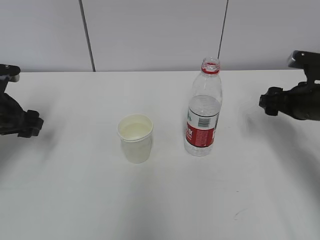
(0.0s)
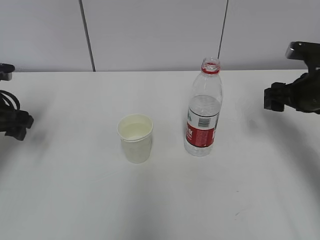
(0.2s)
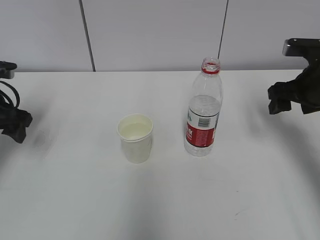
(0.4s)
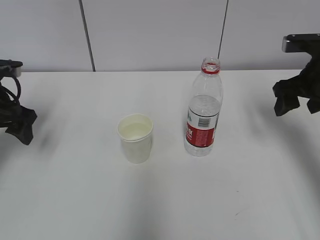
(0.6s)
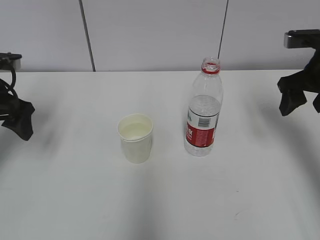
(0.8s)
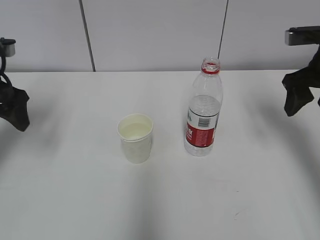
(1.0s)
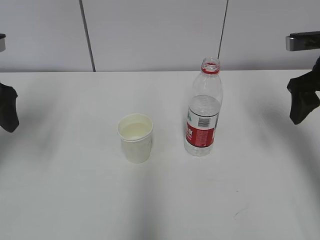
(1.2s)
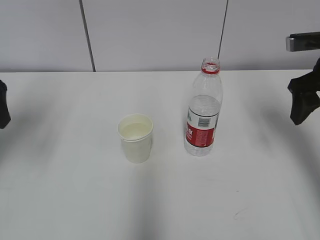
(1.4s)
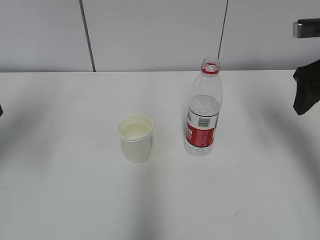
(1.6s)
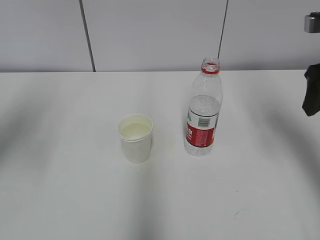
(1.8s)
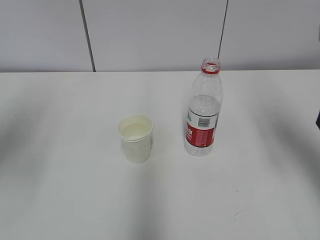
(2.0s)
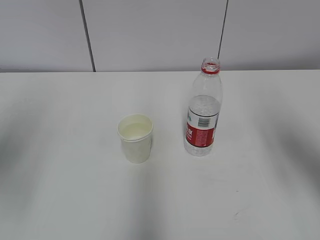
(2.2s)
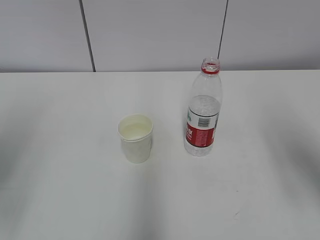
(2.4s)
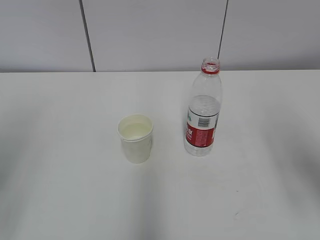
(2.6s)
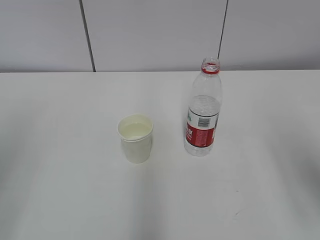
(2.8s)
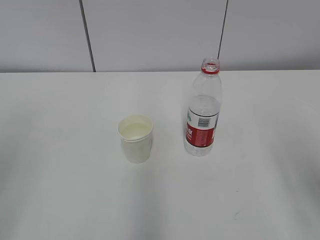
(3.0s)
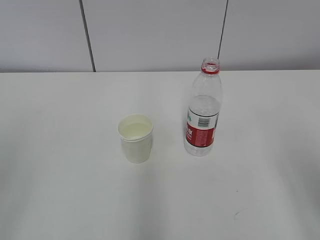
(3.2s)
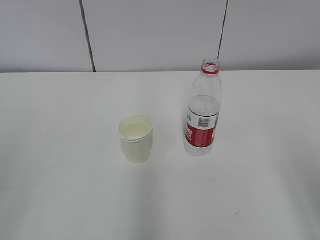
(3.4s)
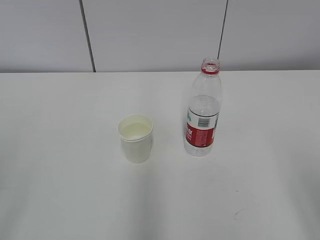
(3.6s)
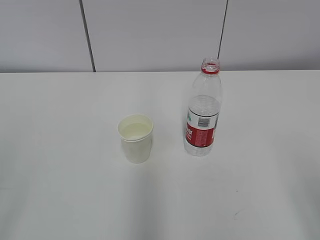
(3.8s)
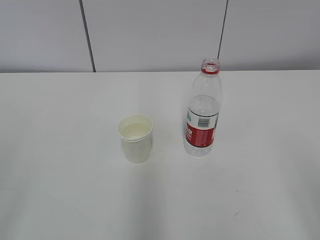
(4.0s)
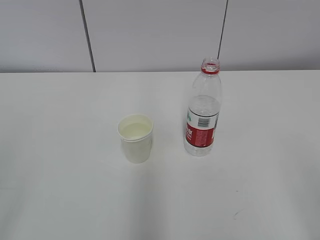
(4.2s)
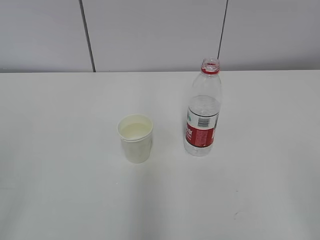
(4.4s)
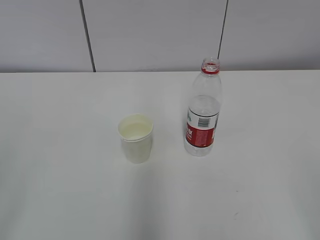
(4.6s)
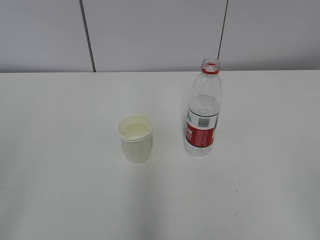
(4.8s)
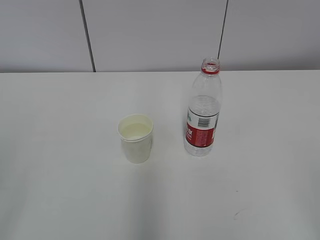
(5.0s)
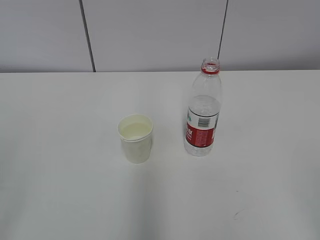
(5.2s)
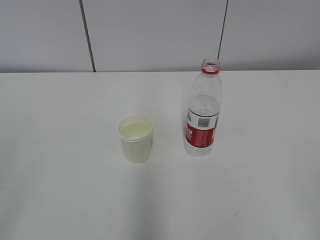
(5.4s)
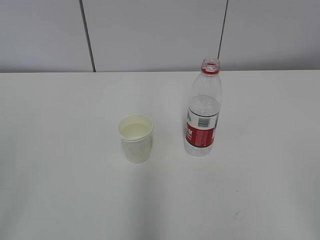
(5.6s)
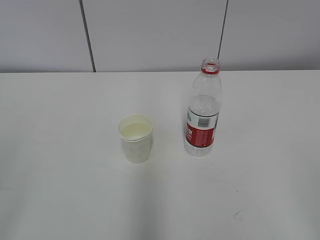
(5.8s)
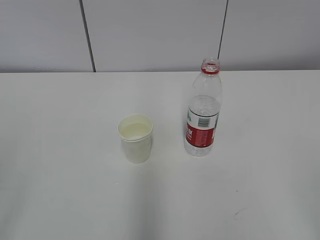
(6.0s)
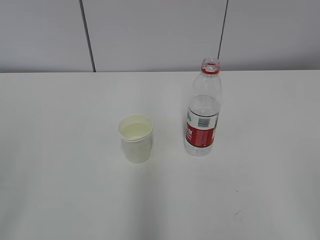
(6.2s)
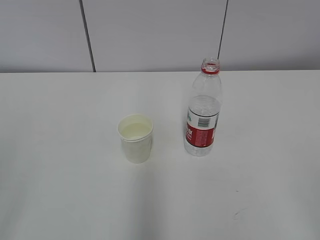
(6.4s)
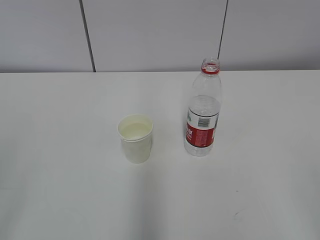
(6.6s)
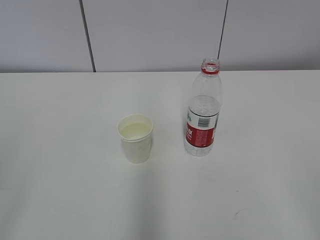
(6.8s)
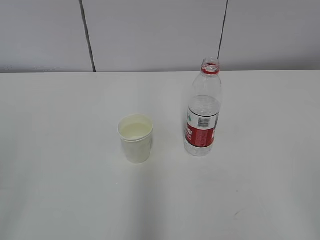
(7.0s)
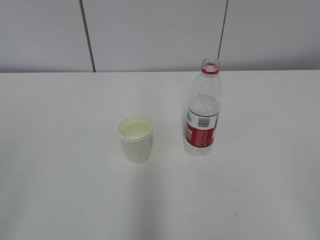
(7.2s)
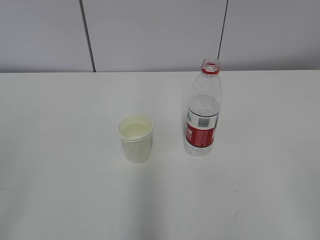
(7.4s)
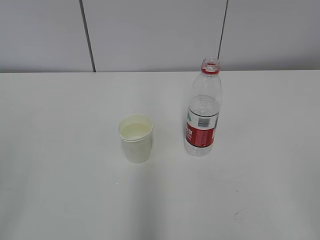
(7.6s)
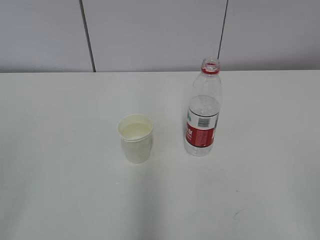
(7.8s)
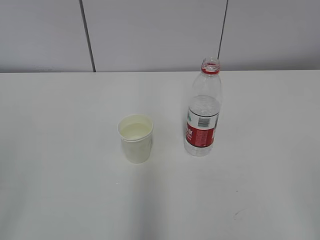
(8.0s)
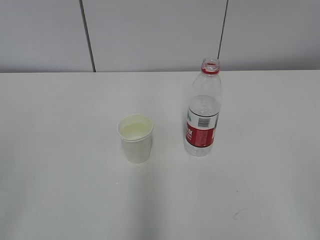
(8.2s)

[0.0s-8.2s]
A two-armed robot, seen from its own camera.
0.0s to 1.6s: The left gripper goes roughly 15 cm upward and backward; the right gripper travels upward by about 10 cm.
1.6s to 3.2s: Both grippers move backward, approximately 20 cm.
5.0s to 8.2s: The two grippers keep their place.

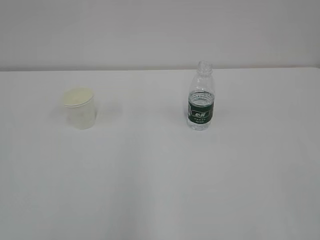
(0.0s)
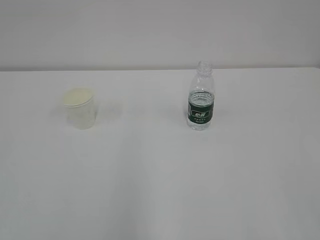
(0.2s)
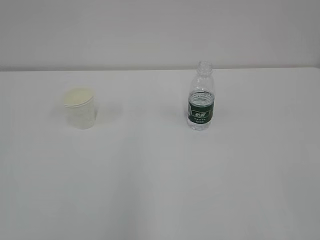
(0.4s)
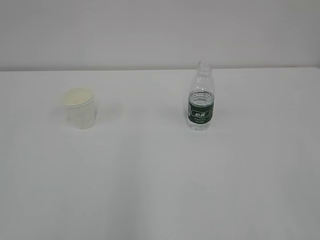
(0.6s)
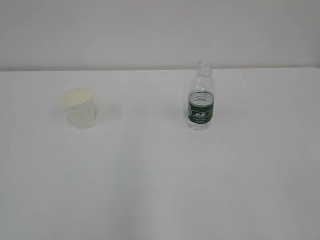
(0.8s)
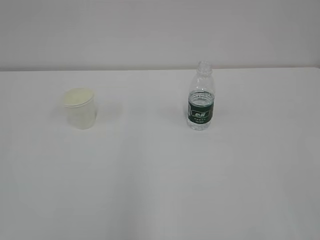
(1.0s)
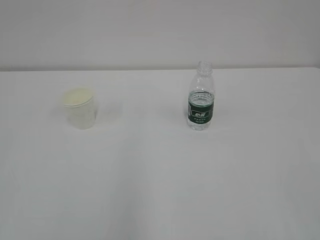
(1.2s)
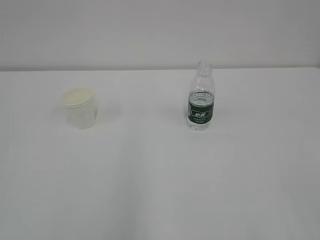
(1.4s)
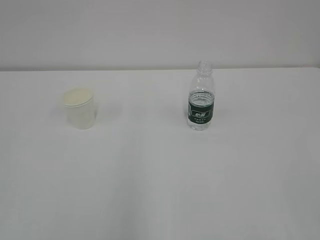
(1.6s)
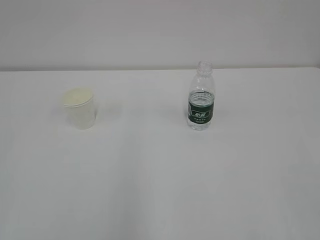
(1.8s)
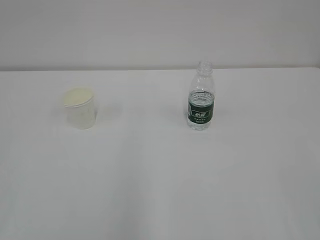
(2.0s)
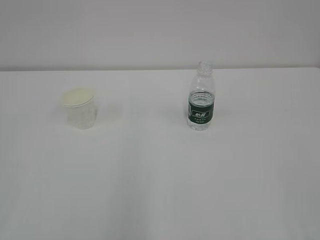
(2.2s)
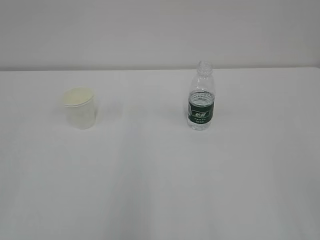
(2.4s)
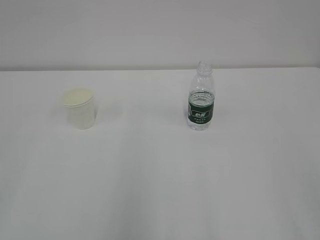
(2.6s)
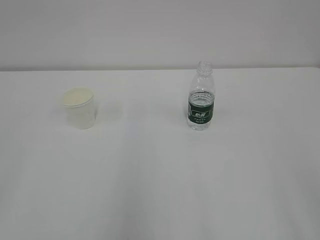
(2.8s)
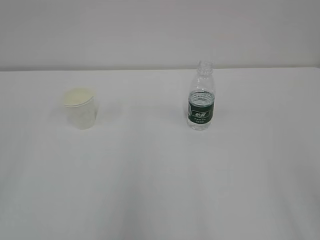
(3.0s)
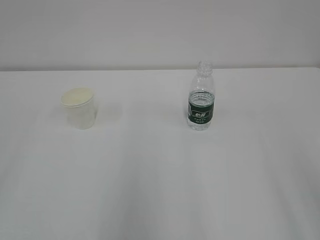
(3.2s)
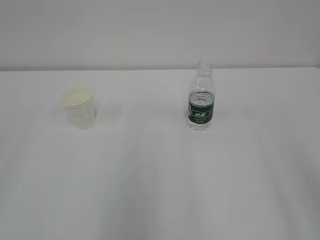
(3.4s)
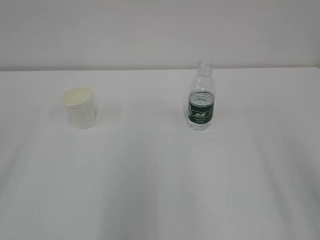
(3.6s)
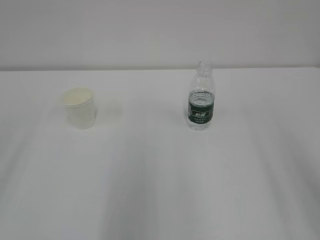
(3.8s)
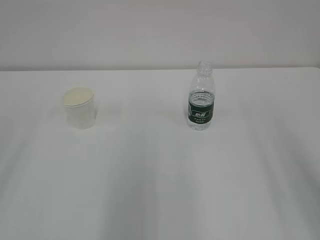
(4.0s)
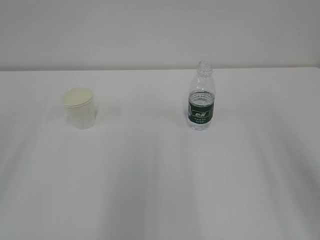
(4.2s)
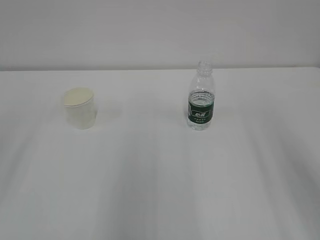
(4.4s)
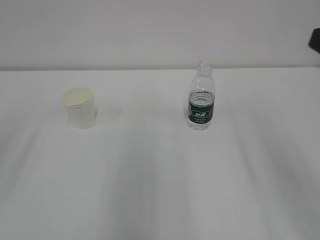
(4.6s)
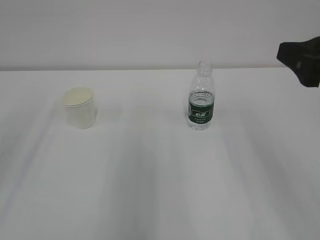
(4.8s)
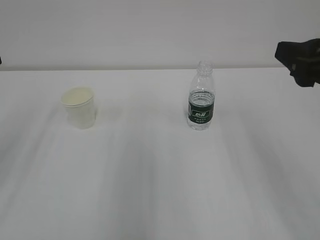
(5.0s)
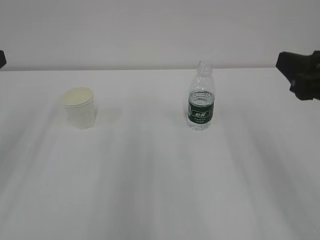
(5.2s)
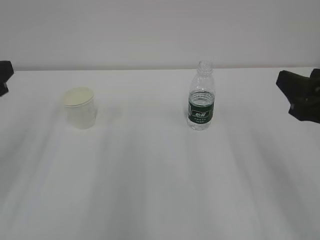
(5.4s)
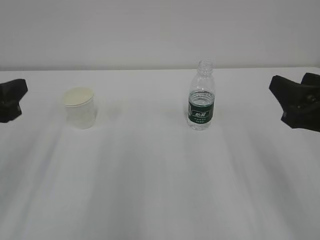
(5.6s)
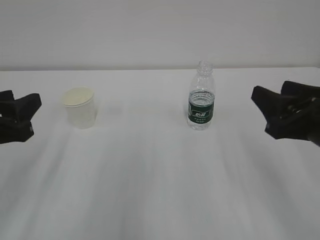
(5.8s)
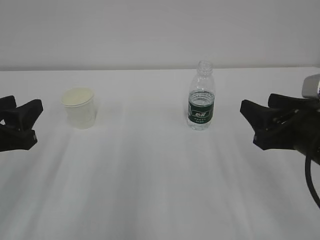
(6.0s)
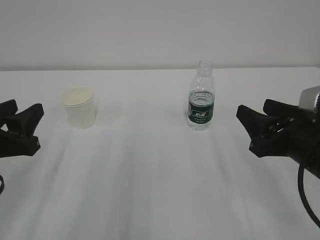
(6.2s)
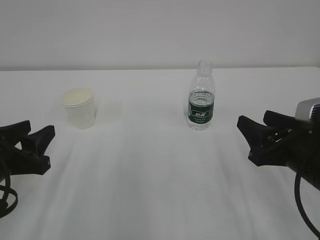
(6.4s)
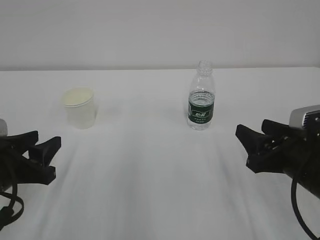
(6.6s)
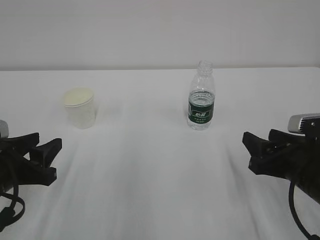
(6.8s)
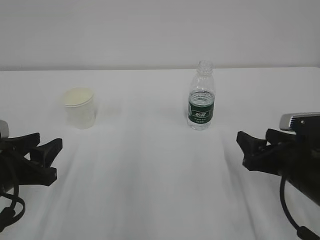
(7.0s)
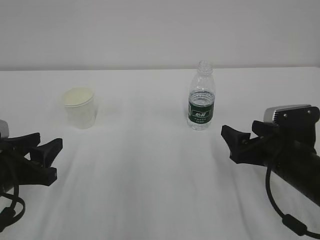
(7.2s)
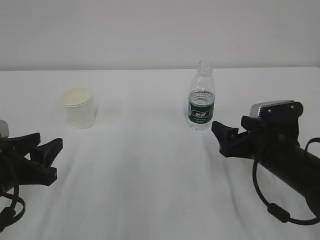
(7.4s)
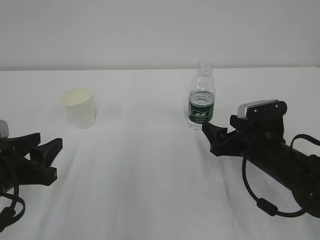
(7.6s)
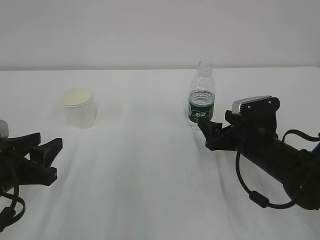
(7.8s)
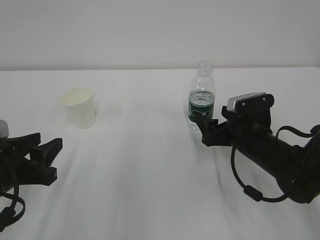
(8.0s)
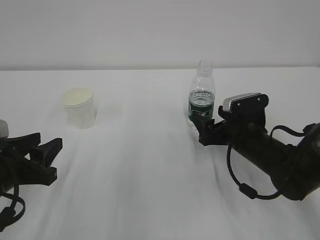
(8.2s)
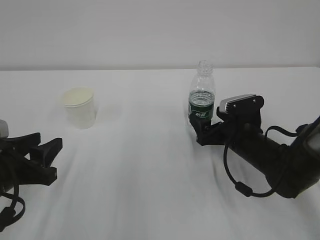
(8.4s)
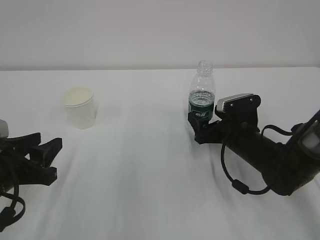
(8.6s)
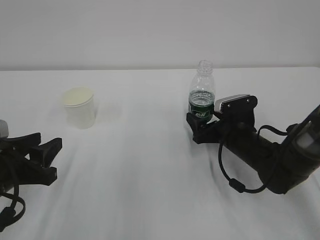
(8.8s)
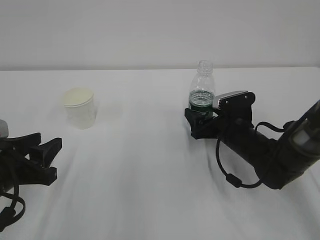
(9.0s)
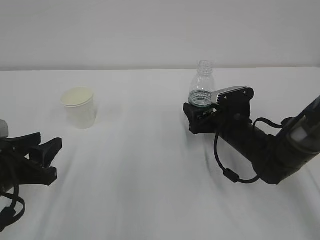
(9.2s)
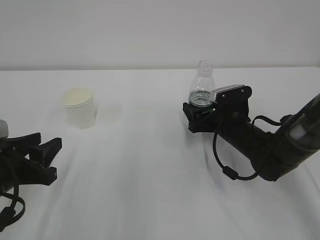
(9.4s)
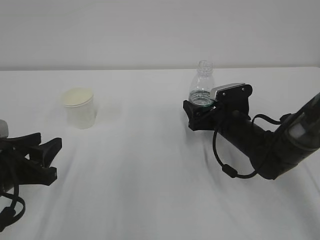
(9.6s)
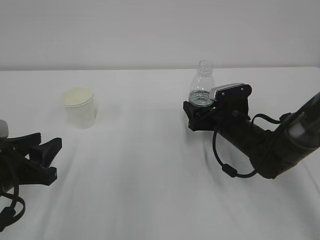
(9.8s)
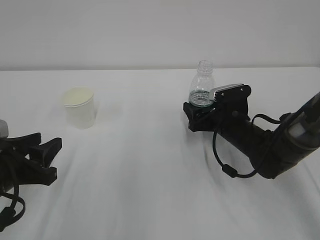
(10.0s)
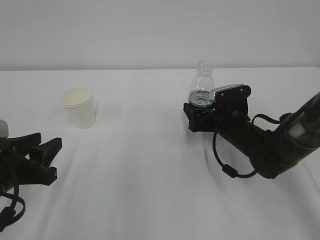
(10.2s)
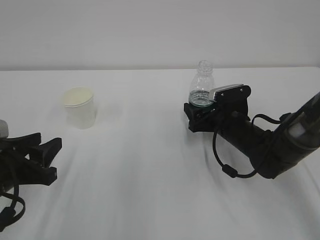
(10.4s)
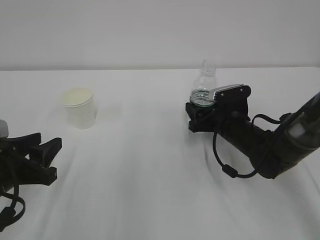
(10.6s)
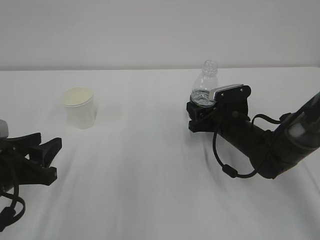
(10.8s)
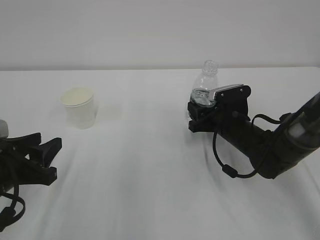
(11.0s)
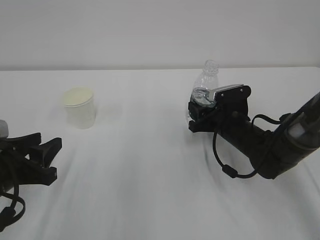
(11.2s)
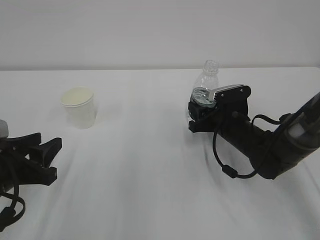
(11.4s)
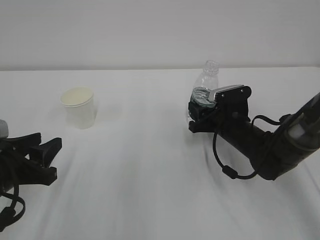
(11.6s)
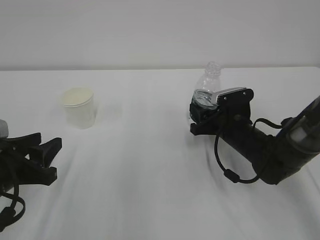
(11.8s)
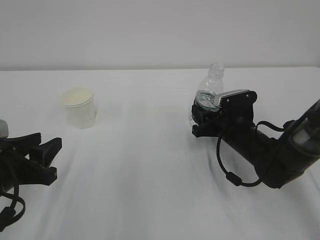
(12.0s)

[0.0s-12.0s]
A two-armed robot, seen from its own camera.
4.4s to 6.0s: The right gripper shifts approximately 15 cm downward. Meanwhile the left gripper shifts approximately 15 cm downward and to the right.
6.0s to 7.6s: The right gripper goes some 15 cm downward and forward, and opens, while the left gripper heads downward, covering approximately 5 cm.
7.6s to 9.0s: The right gripper is displaced forward by roughly 5 cm.
9.0s to 10.4s: The grippers stay close to where they were, moving slightly.
10.4s to 12.0s: The right gripper closes its fingers.

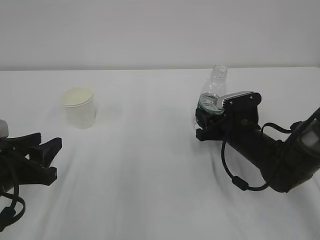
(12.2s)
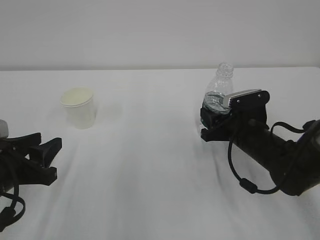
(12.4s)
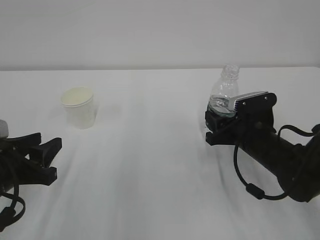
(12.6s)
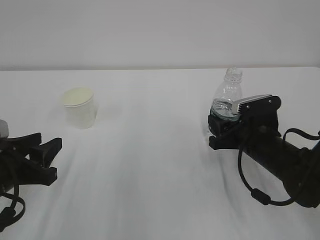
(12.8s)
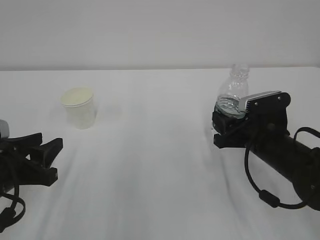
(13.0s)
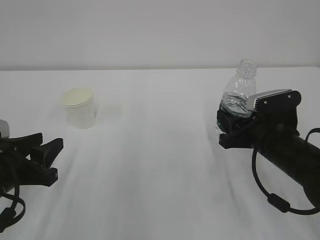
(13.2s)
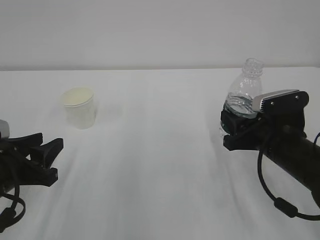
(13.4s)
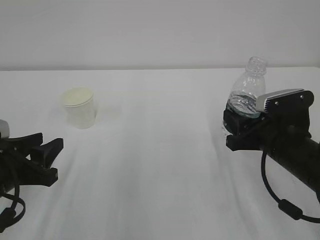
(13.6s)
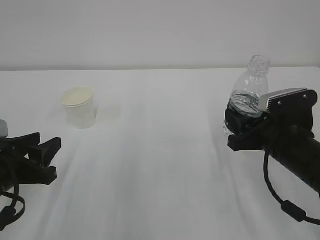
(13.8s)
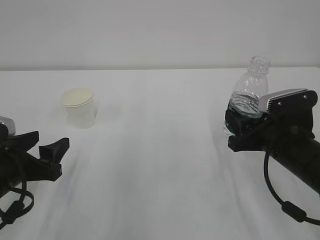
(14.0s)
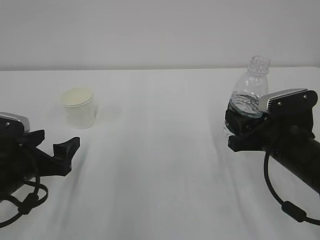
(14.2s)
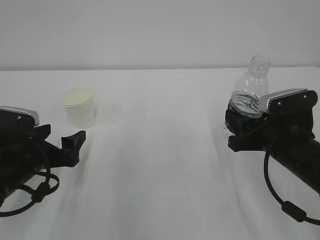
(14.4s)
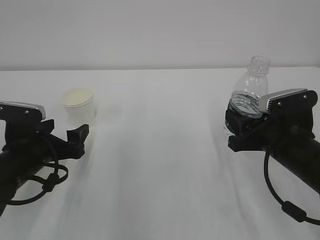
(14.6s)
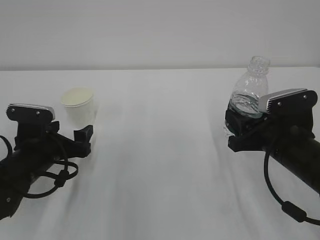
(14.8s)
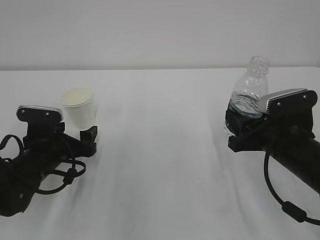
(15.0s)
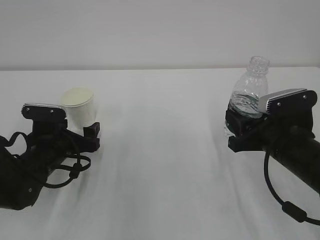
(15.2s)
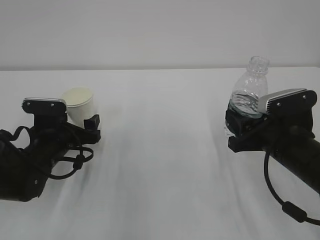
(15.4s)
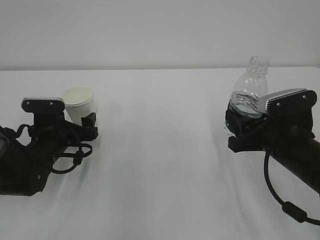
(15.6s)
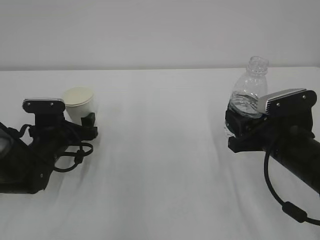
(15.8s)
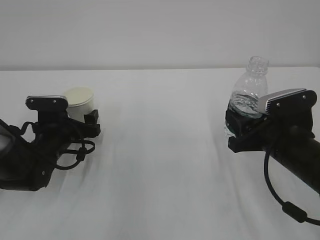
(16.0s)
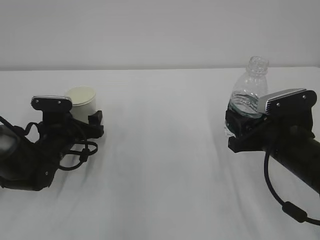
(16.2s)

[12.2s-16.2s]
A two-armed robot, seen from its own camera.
12.2s to 13.6s: The right gripper shifts approximately 10 cm backward and upward.
13.6s to 14.8s: The left gripper moves forward, about 10 cm, and opens up.
14.8s to 16.2s: The left gripper heads forward, covering some 5 cm.
